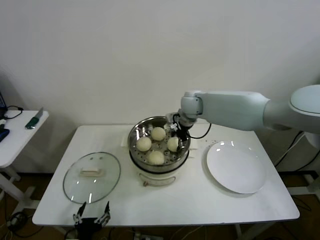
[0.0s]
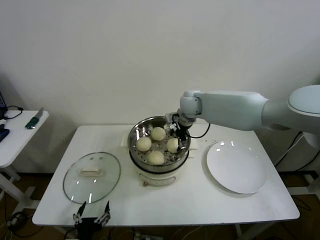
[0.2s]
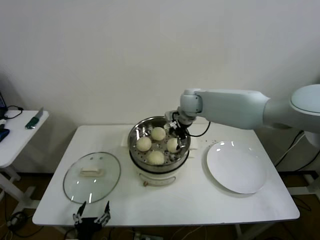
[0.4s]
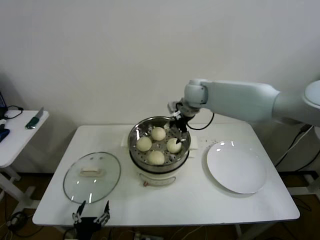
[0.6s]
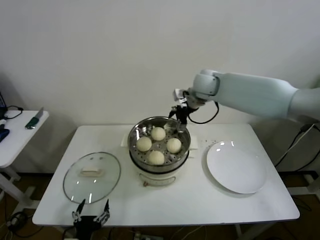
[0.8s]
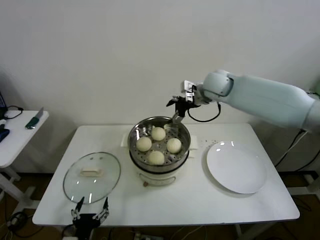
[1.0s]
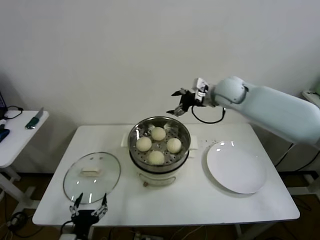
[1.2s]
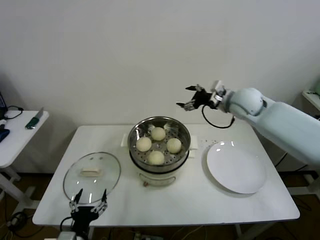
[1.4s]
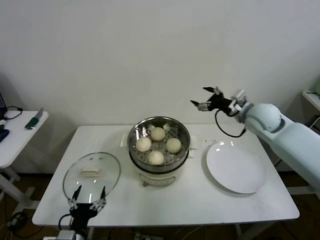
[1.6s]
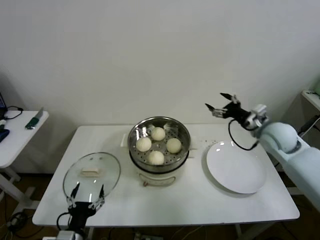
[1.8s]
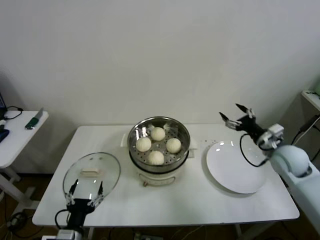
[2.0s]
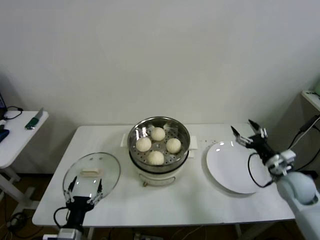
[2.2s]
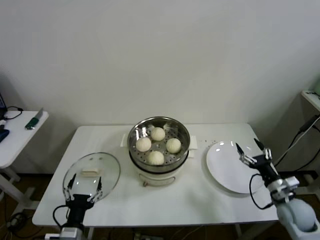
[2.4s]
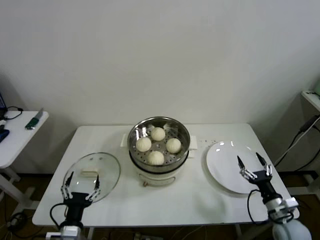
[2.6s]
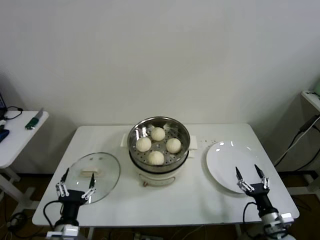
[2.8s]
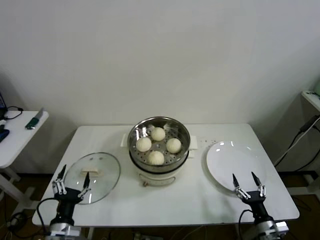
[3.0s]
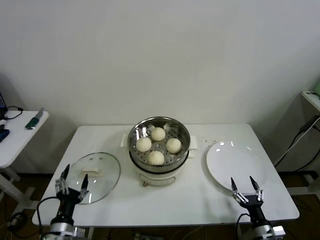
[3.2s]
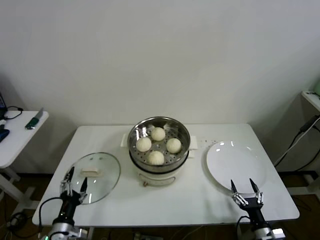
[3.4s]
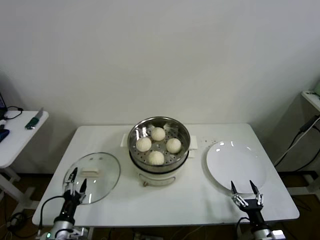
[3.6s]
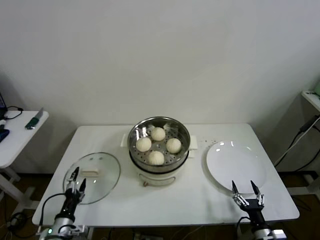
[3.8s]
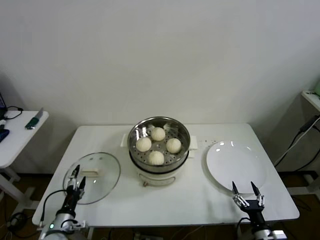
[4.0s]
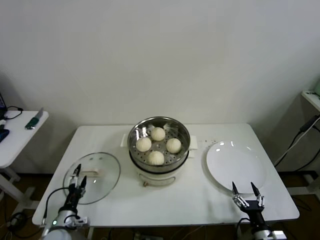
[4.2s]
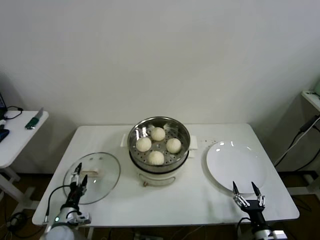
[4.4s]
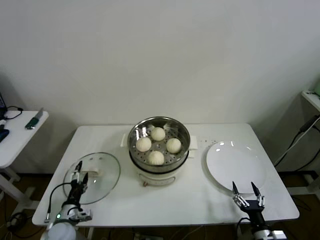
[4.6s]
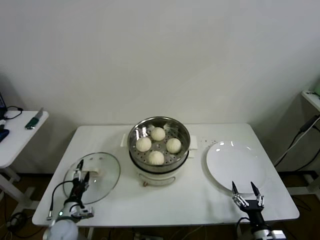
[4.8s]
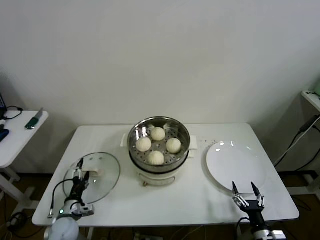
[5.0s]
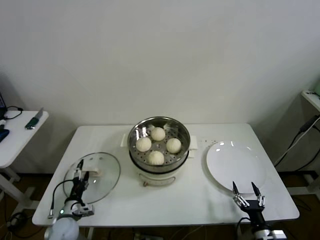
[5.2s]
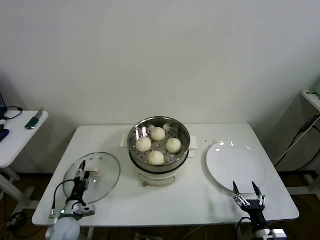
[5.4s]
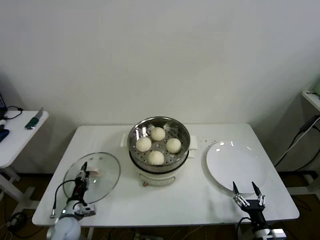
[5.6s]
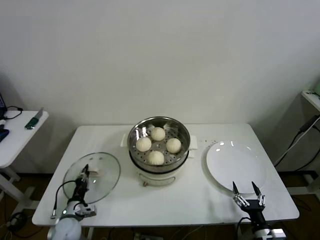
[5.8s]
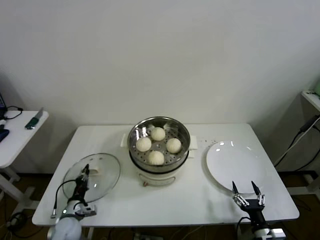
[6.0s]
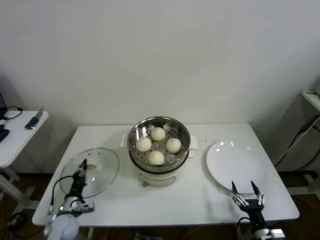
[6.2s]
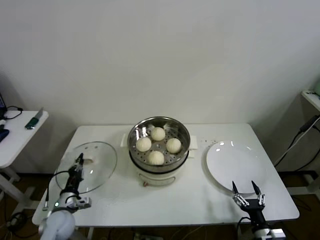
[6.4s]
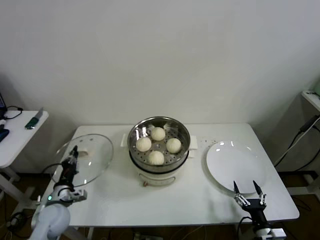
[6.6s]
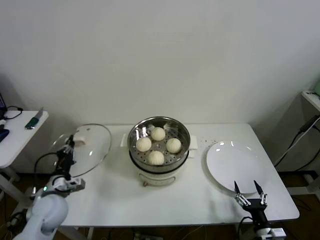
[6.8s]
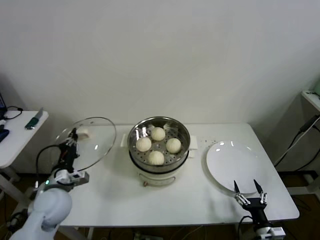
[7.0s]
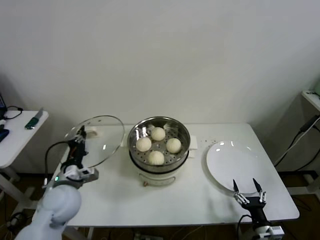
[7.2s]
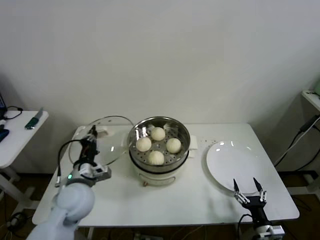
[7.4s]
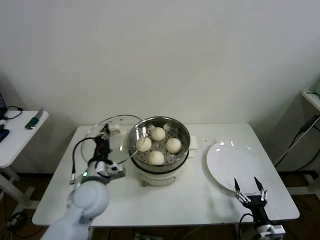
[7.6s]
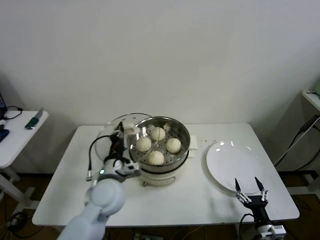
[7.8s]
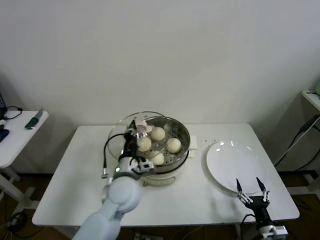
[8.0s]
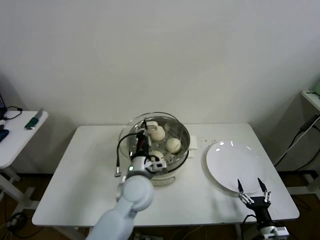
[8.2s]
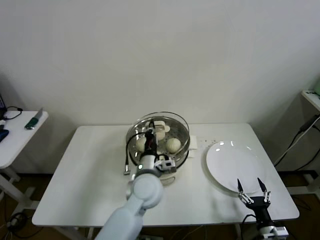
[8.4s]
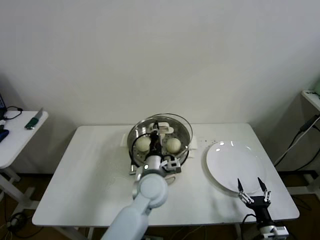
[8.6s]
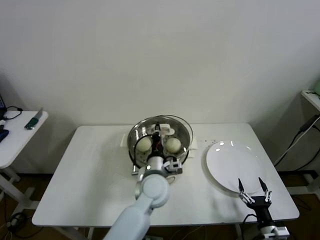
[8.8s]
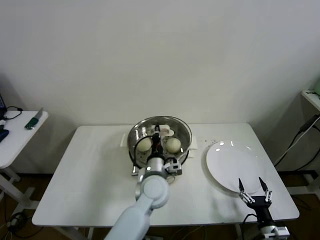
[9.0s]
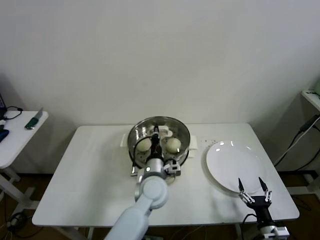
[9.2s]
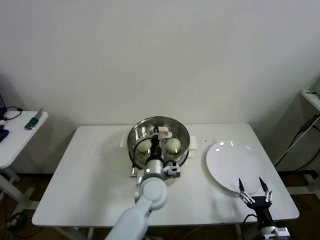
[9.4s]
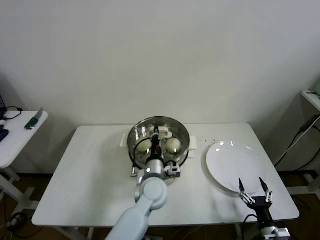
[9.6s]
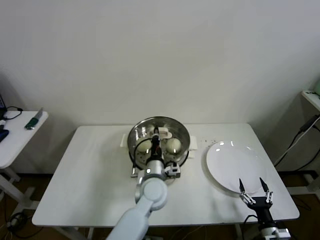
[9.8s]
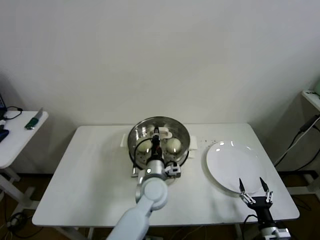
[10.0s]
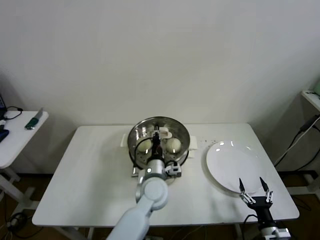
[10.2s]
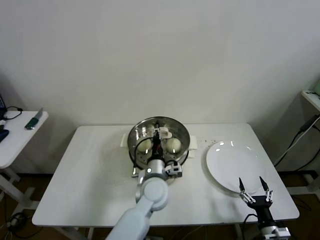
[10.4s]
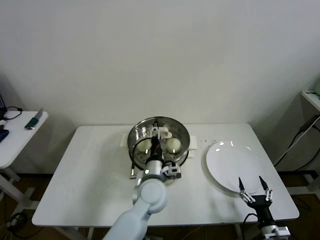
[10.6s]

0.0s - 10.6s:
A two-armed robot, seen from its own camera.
Step, 0.2s - 5.8s: Grasp the pot lid with left gripper.
Step, 6.0s - 10.0s: Place the pot lid on the steamer with left gripper.
0.0s - 1.6s: The right gripper goes roughly 20 cm to the right and backward, and opens its fingers.
1.6s - 3.0s: The right gripper moves downward and backward, approximately 50 cm.
3.0s - 4.6s: The left gripper heads downward, forward and to the left, covering about 15 cm.
4.6s - 6.0s: The left gripper closes its fingers.
6.0s - 7.6s: The left gripper goes roughly 25 cm upward and to the right.
7.6s - 9.0s: The left gripper heads to the right, covering some 20 cm.
9.0s - 10.6s: The left gripper opens.

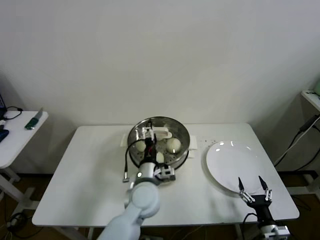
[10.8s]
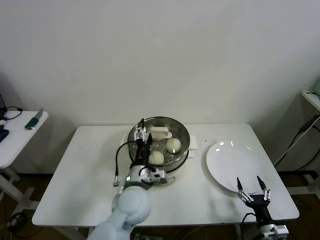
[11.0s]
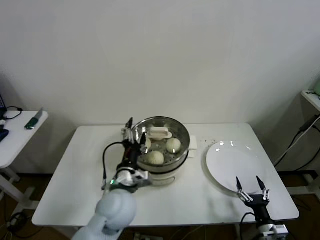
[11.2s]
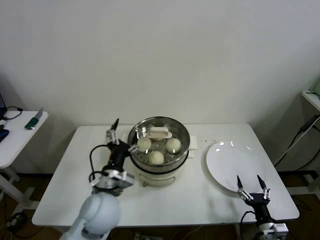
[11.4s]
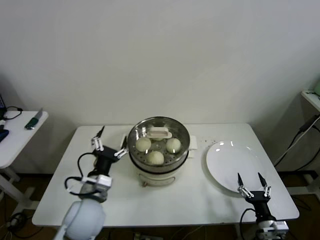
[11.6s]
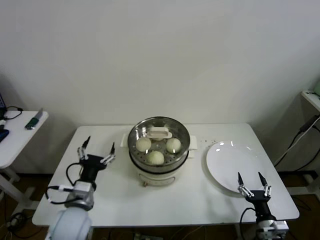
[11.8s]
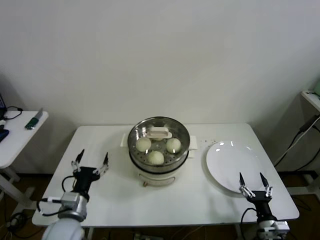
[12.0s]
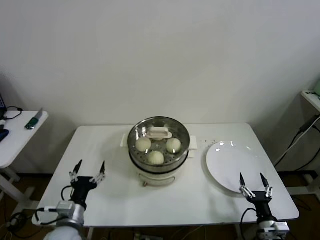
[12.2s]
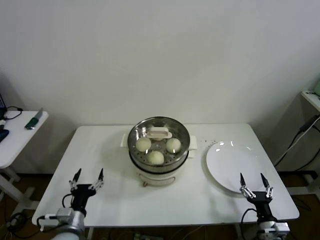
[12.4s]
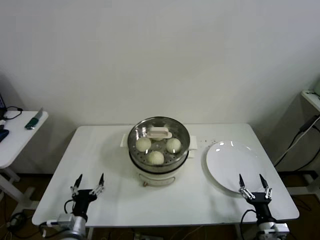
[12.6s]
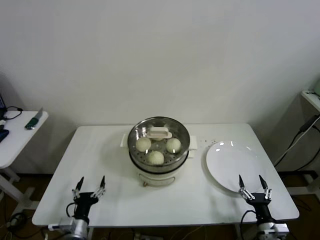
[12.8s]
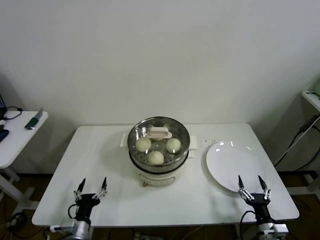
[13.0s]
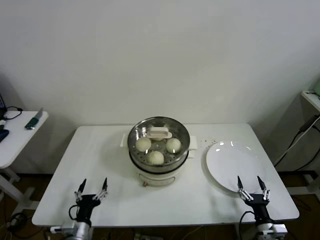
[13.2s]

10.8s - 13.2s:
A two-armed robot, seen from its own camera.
10.8s - 12.0s: The left gripper travels to the left and backward by approximately 25 cm.
12.0s - 13.2s: The left gripper goes approximately 15 cm downward.

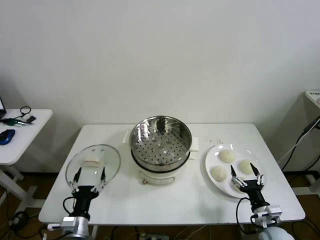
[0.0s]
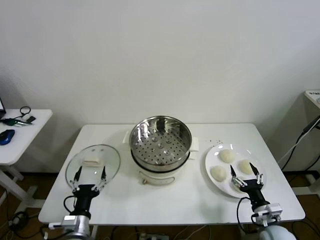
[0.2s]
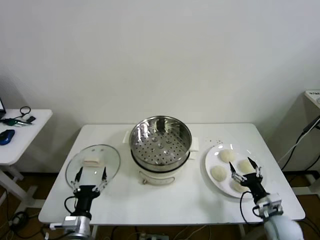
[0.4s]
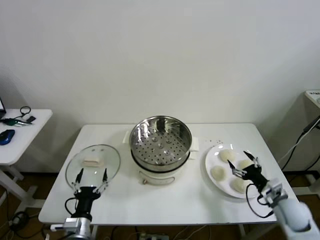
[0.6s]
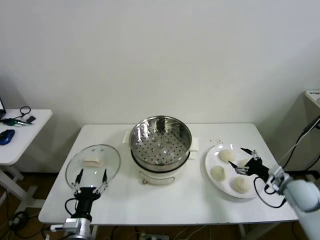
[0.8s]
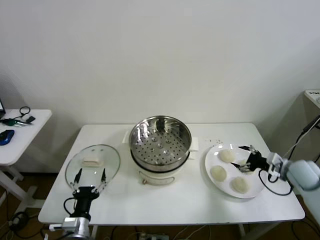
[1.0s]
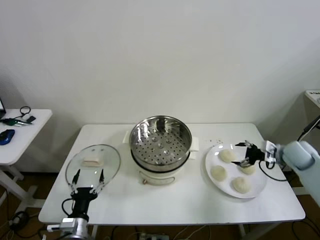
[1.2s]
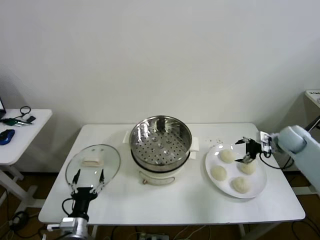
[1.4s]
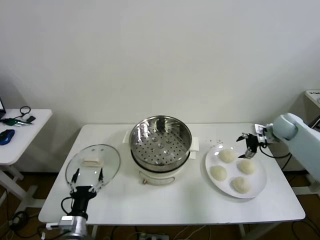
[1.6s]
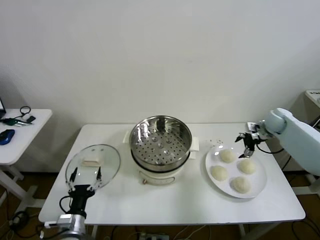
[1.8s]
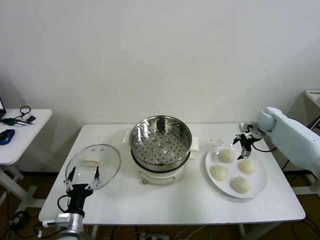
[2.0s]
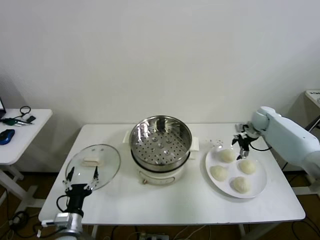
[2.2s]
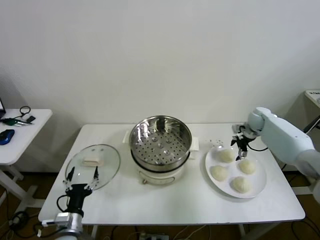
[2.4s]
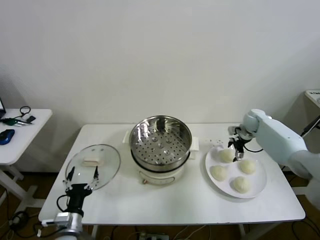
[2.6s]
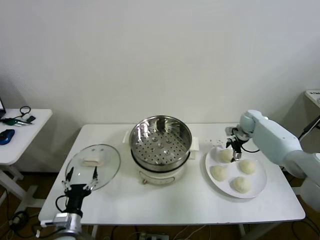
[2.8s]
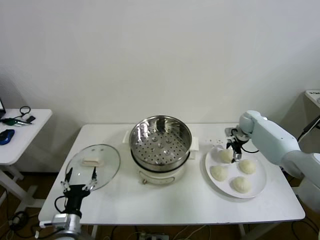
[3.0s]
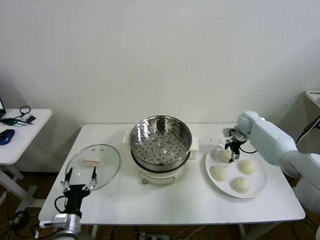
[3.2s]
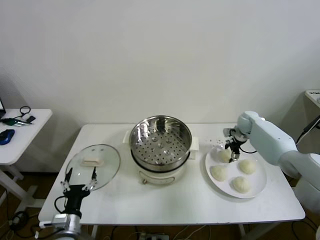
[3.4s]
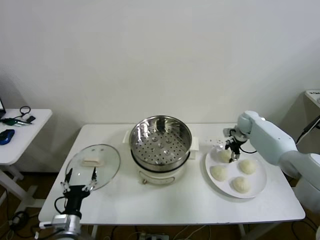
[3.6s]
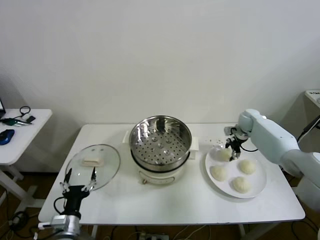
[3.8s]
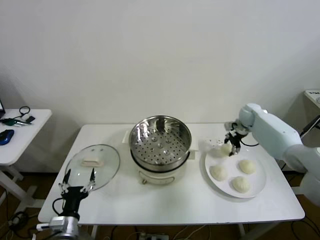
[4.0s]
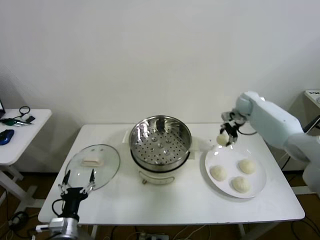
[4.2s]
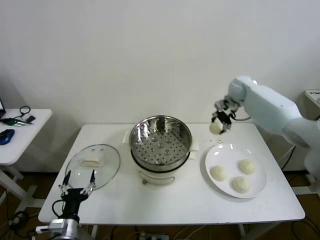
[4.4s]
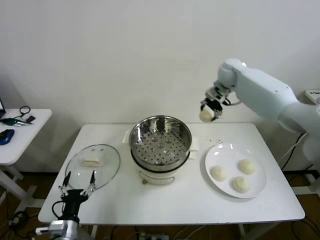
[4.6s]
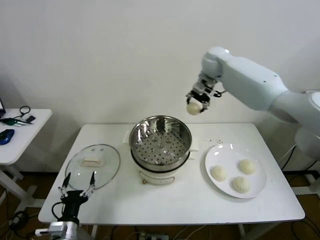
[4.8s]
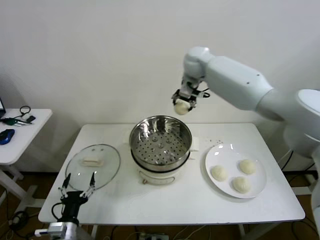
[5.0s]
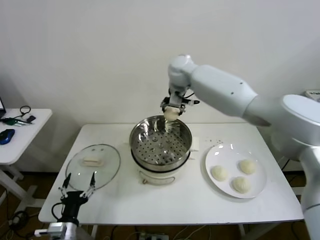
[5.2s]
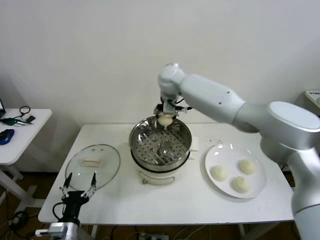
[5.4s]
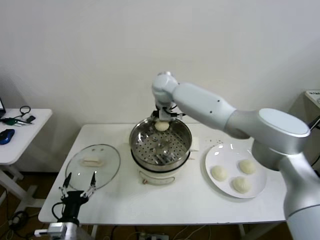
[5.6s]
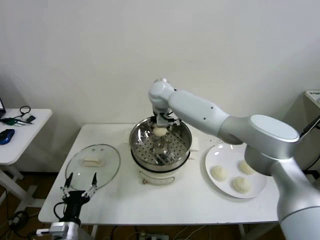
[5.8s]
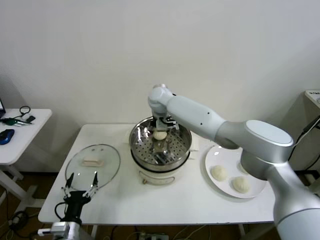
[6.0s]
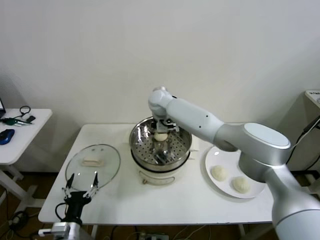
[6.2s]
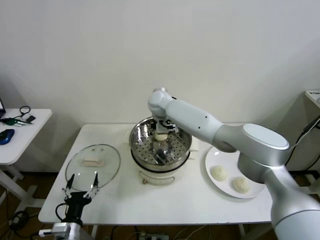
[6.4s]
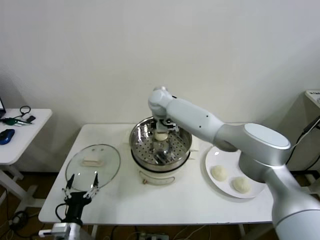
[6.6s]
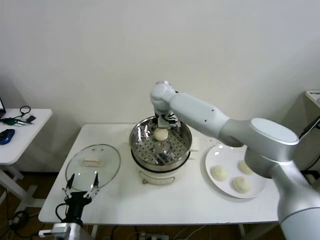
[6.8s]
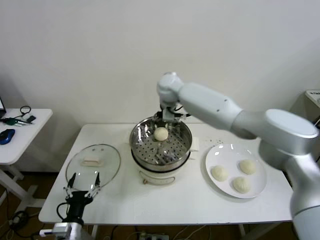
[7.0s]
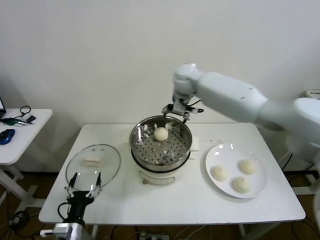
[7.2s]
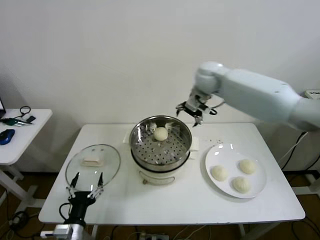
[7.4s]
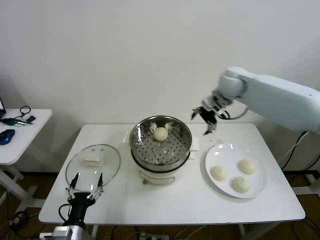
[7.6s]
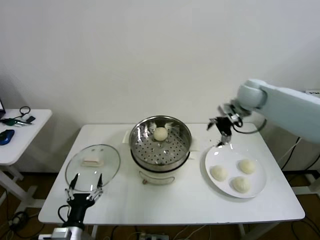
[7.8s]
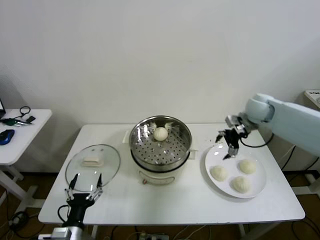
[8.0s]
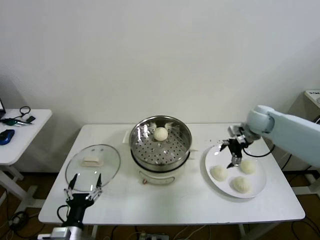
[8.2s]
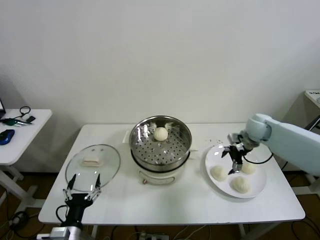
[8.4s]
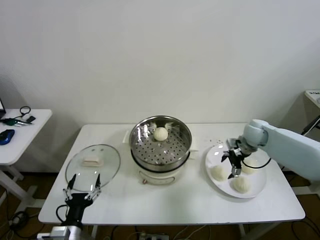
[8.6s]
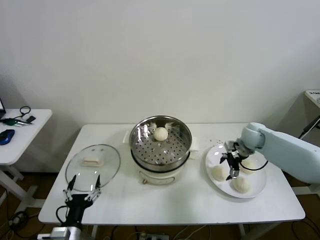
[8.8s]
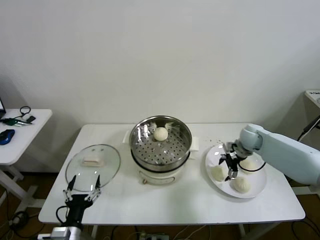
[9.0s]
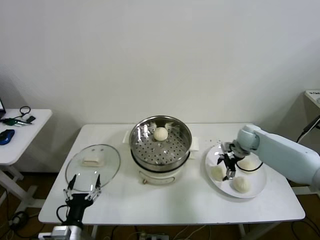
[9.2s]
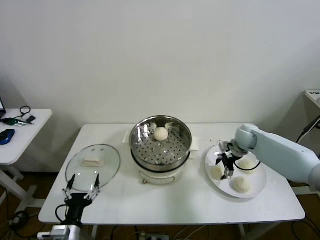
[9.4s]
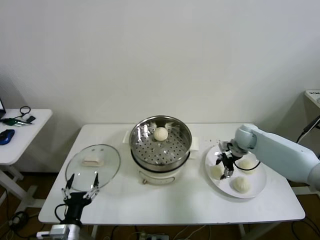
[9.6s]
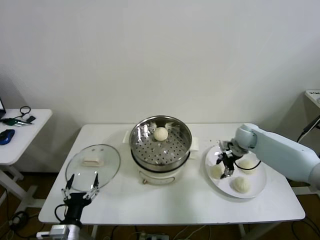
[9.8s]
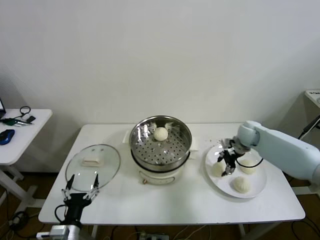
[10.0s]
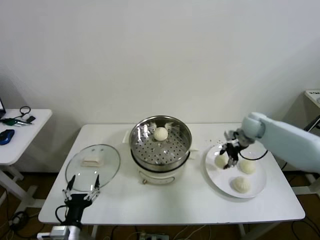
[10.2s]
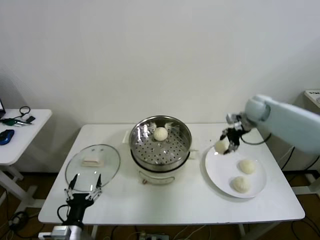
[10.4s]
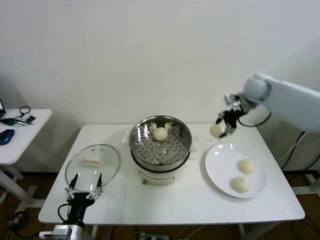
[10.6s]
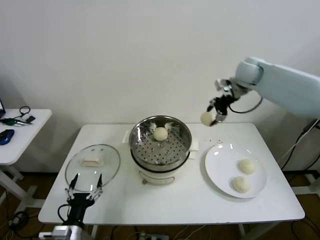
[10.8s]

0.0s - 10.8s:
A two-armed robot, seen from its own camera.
Step, 0.0s - 3.4s: Grasp the baozi in the plate with right gripper.
Step, 3.6s - 6.4s: Place the baozi on the steamer with right gripper.
Step, 6.6s - 9.6s: Grasp the baozi in the plate with right gripper.
1.6s - 3.0s: The right gripper heads to the left, forward and downward, covering roughly 10 cm.
3.0s - 4.6s: The right gripper shifts about 30 cm upward and to the left, and closes its fingers.
4.6s - 6.2s: The right gripper heads to the left and downward, covering some 25 cm.
6.2s - 7.8s: The right gripper travels to the right by approximately 35 cm, and opens its fingers.
7.8s - 9.2s: The right gripper shifts approximately 15 cm downward.
9.2s - 10.8s: The right gripper travels upward by about 25 cm, and closes up.
